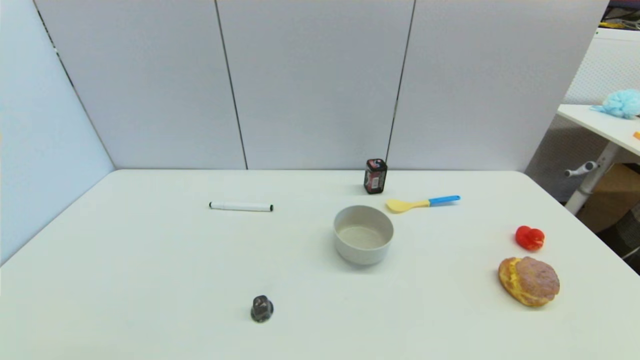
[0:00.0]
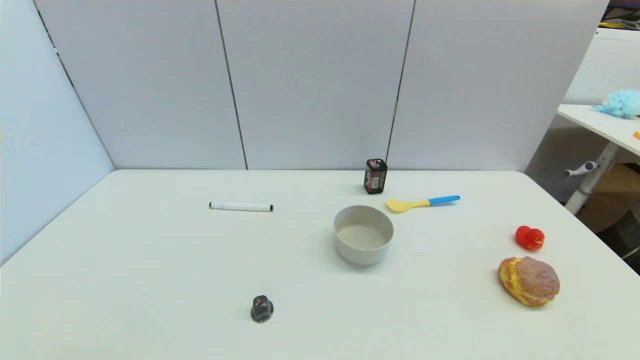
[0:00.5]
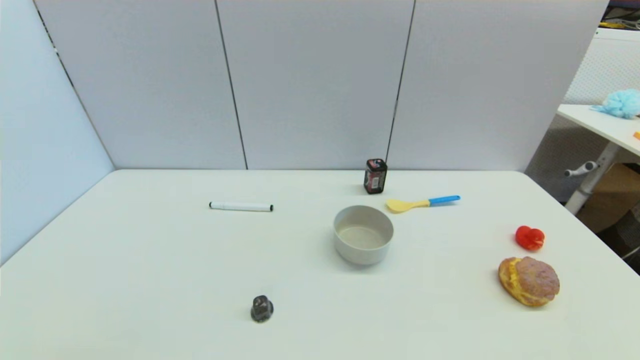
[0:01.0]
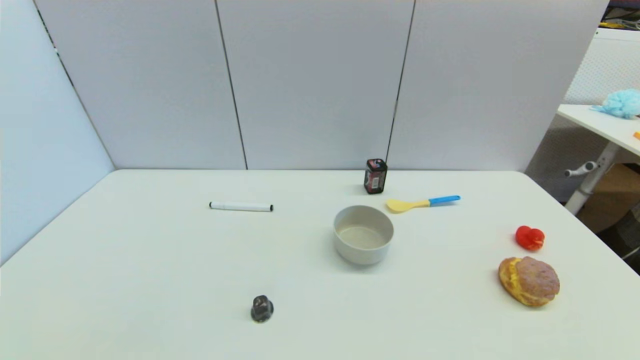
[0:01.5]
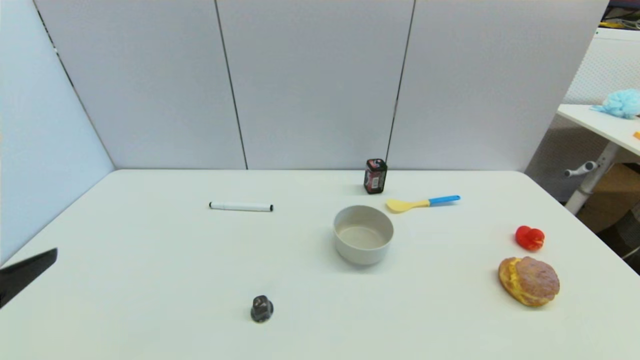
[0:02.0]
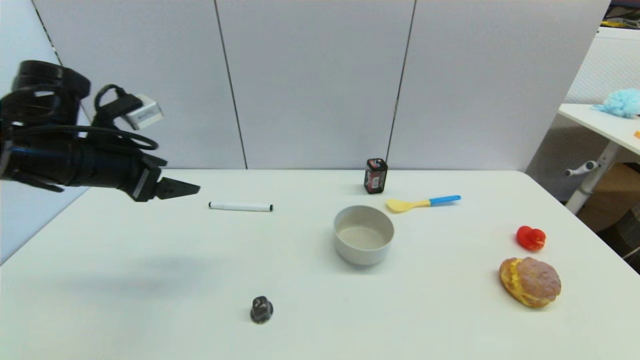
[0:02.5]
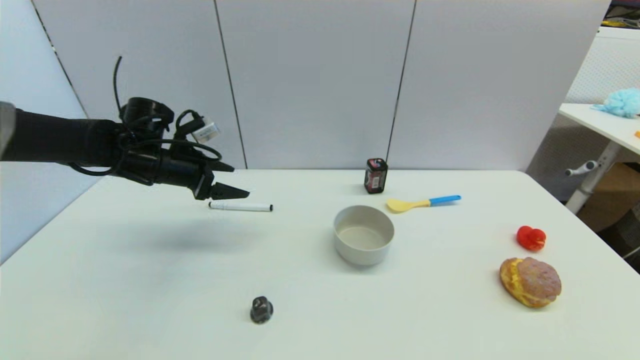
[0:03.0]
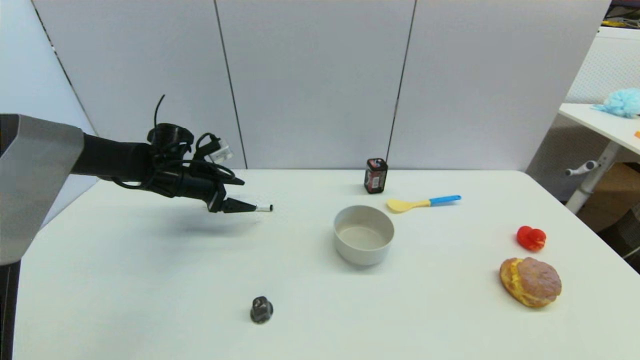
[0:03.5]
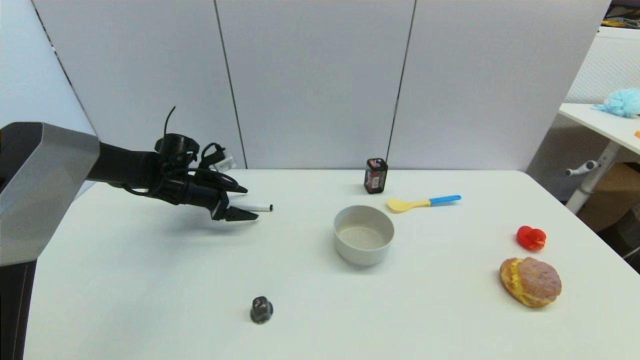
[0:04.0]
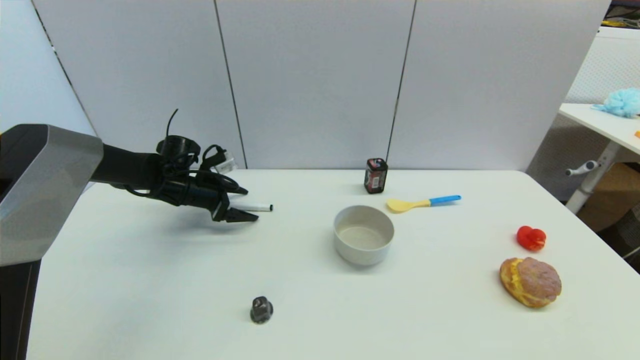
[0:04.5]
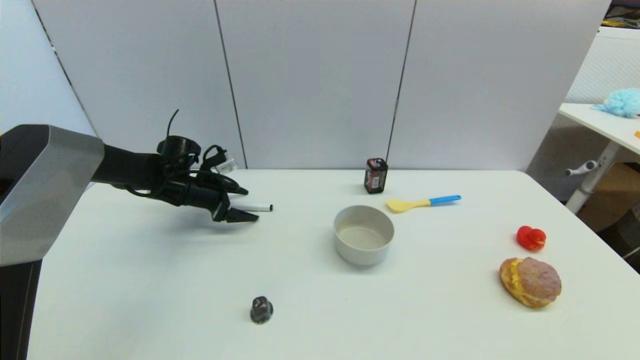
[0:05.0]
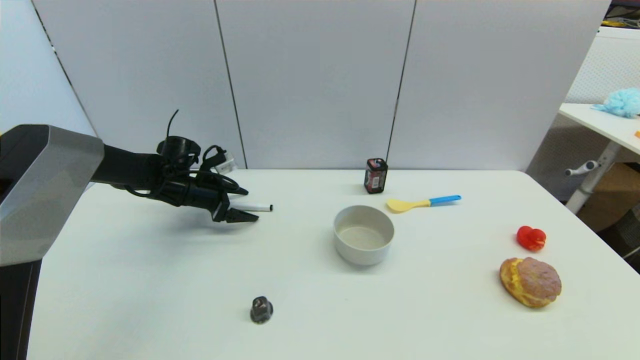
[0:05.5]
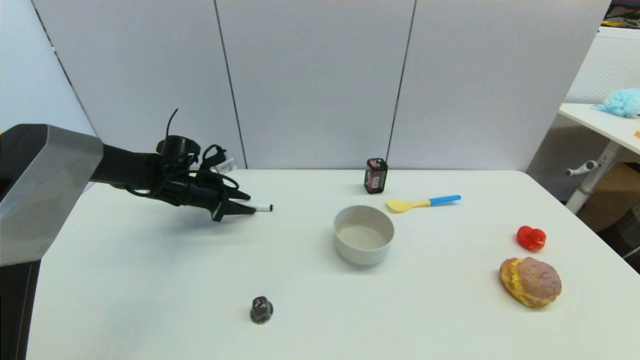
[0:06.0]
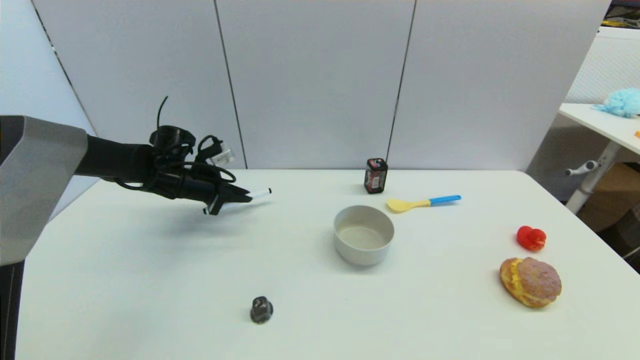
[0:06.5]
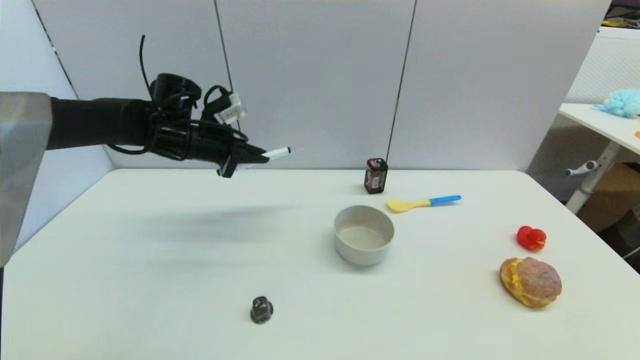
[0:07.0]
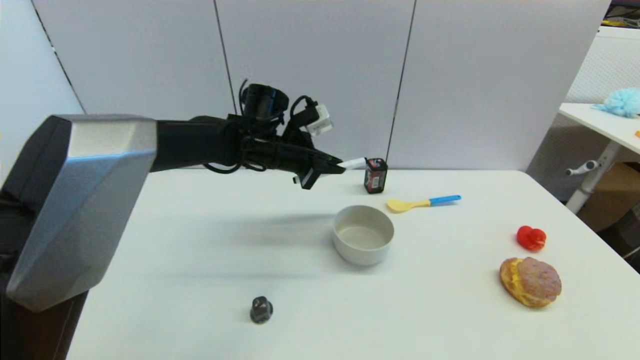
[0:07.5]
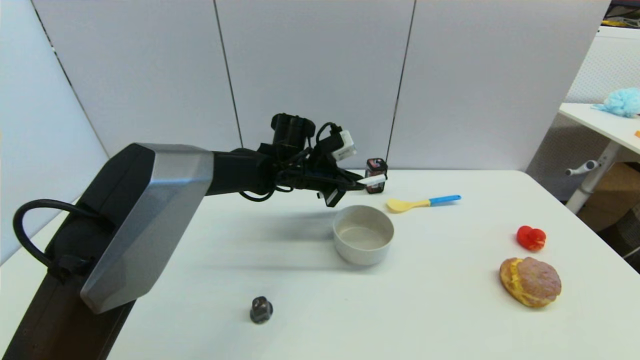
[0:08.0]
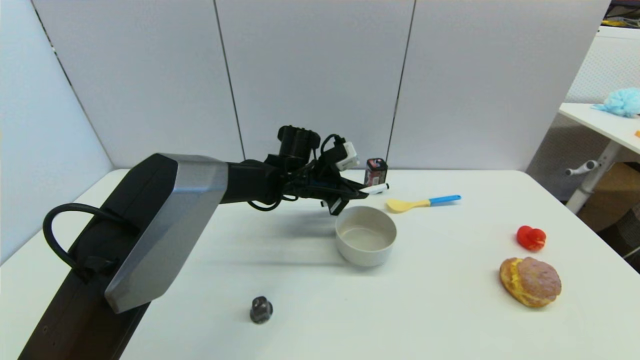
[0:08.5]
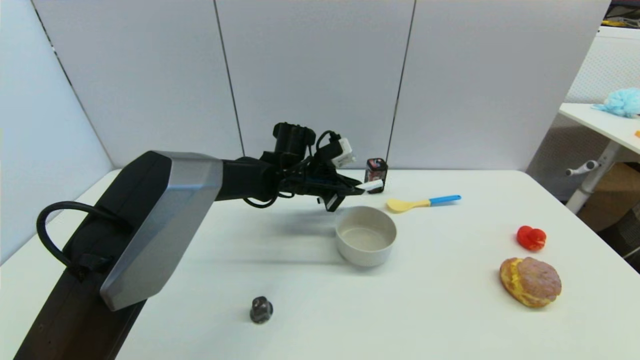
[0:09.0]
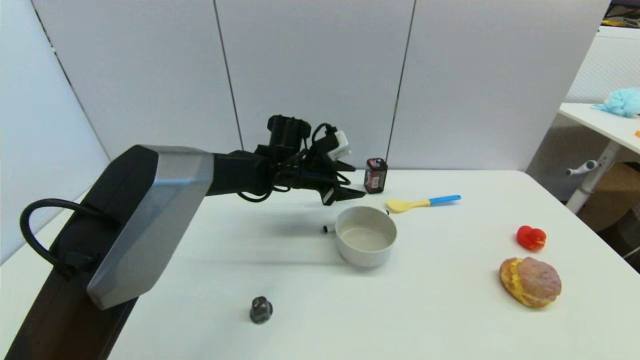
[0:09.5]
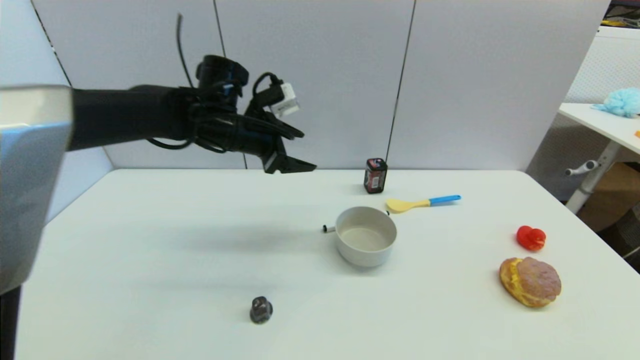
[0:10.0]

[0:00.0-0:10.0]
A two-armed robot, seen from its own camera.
Task of the whole recording: put the black marker in the designated position.
Step, 0:02.0 to 0:06.0: Grasp the Marker pen with left gripper.
Step, 0:06.5 to 0:09.0: Place the Marker pen on the table with left gripper.
0:00.0 to 0:02.0: The left gripper moves upward and forward, some 20 cm.
0:02.0 to 0:04.0: The left gripper goes some 35 cm forward.
0:04.0 to 0:06.0: The left gripper closes up.
0:06.0 to 0:08.0: The left gripper heads to the right, covering approximately 25 cm, and closes up.
0:08.0 to 0:10.0: The left gripper goes about 15 cm to the left and upward, and opens.

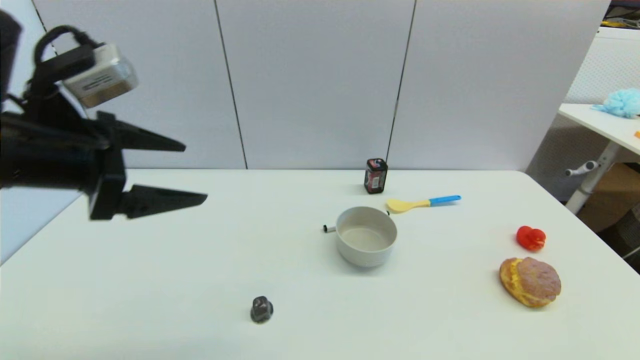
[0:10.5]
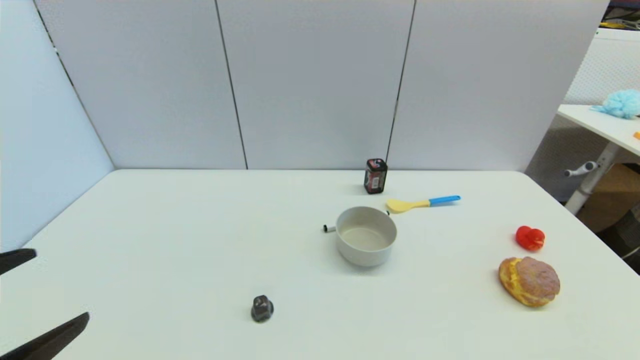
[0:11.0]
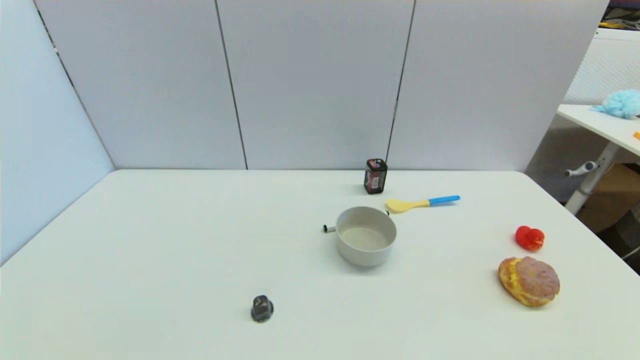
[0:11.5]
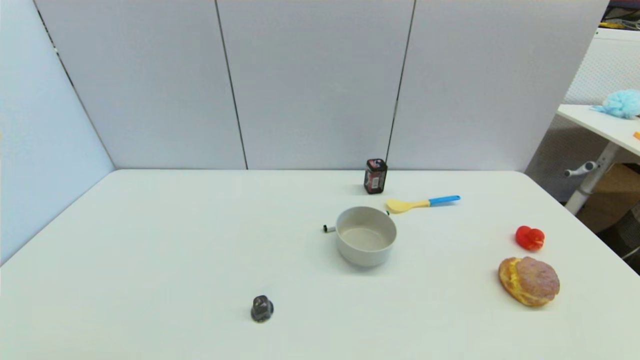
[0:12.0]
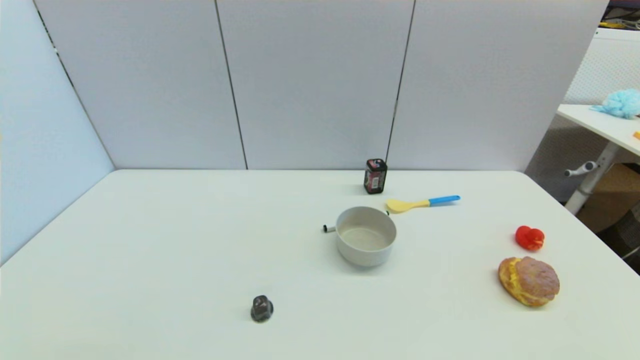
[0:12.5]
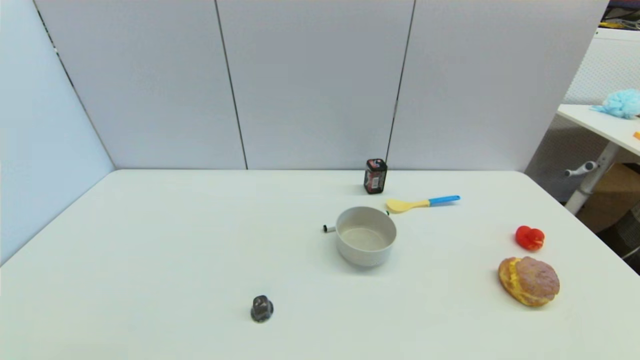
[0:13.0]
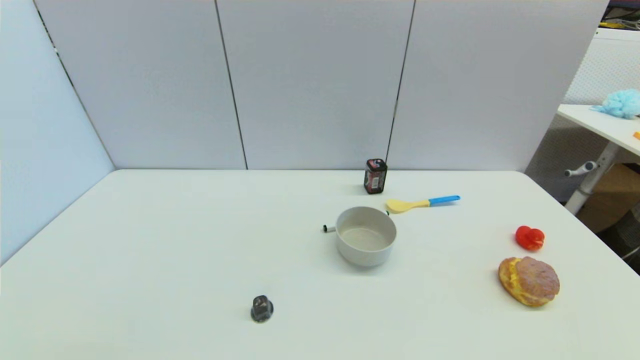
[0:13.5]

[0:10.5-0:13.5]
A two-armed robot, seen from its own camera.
Task of the whole recording: put the black marker in the designated position.
0:10.5 to 0:12.0: The left gripper heads downward and backward, covering approximately 30 cm.

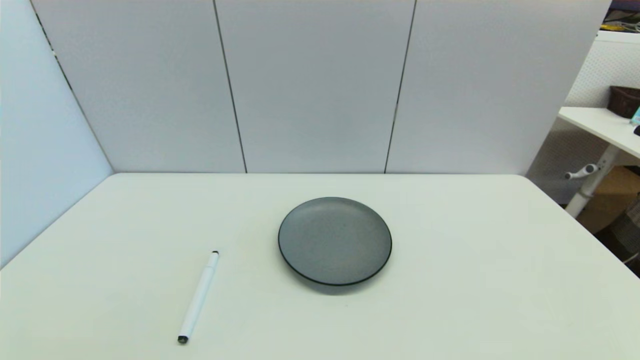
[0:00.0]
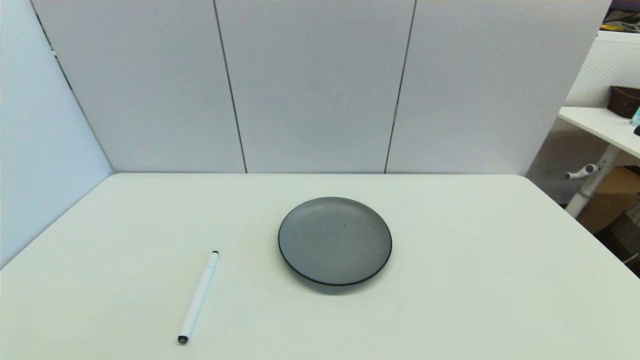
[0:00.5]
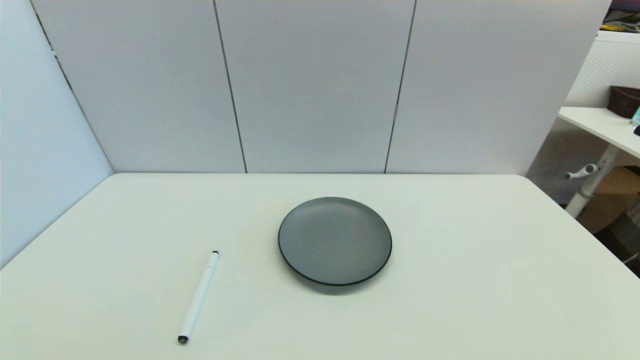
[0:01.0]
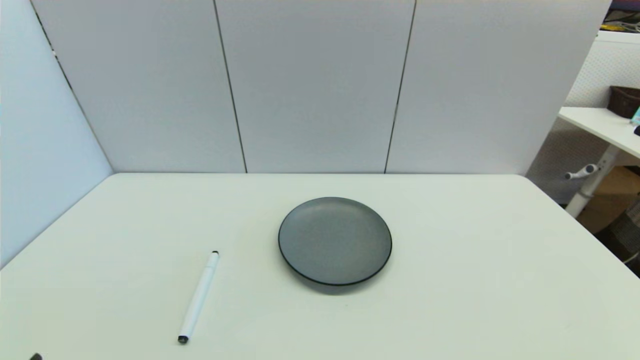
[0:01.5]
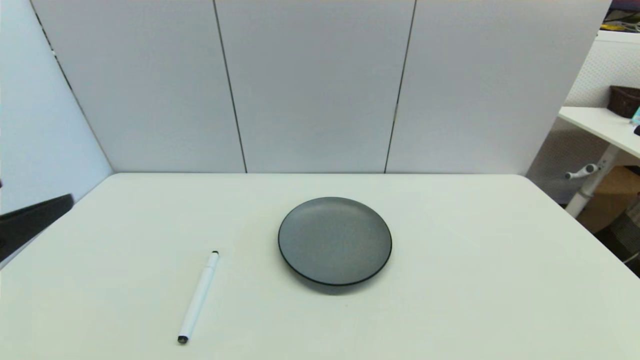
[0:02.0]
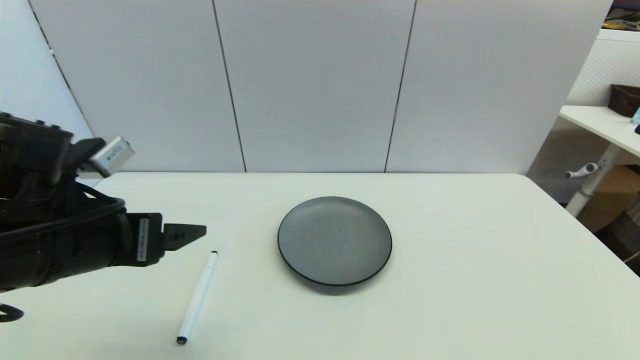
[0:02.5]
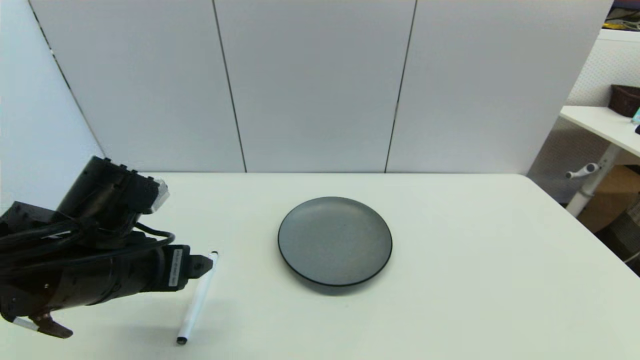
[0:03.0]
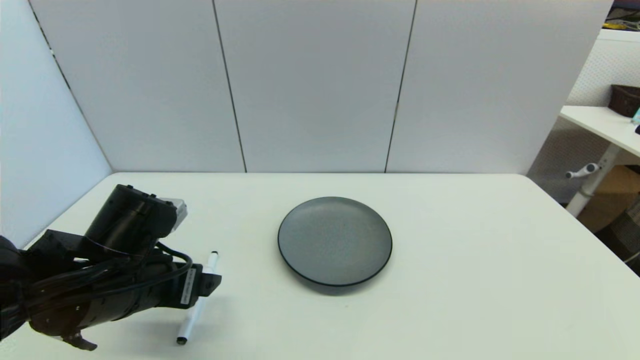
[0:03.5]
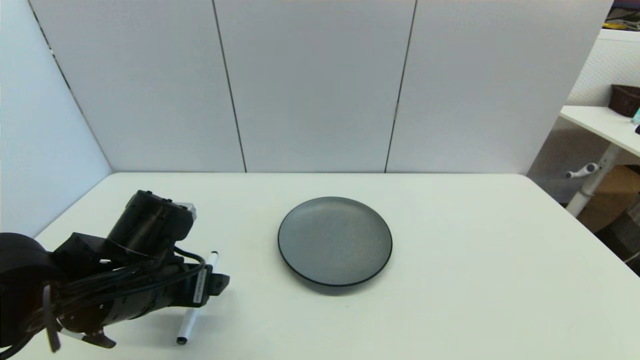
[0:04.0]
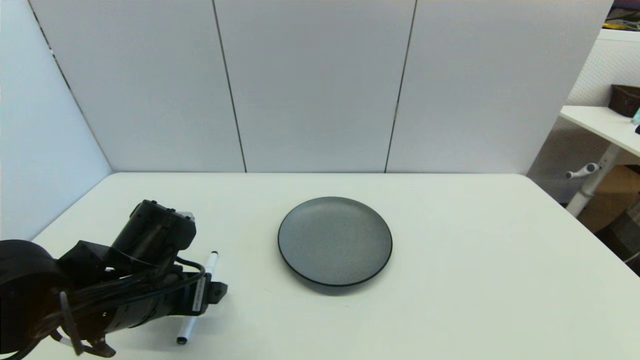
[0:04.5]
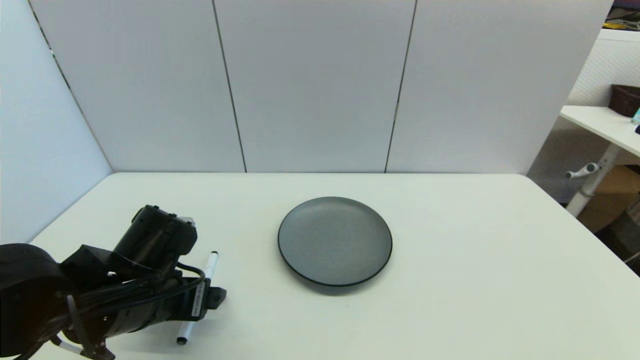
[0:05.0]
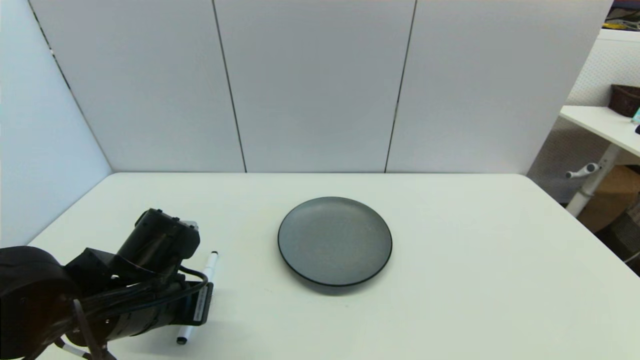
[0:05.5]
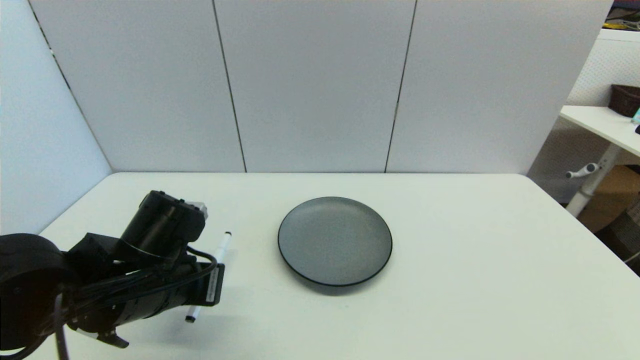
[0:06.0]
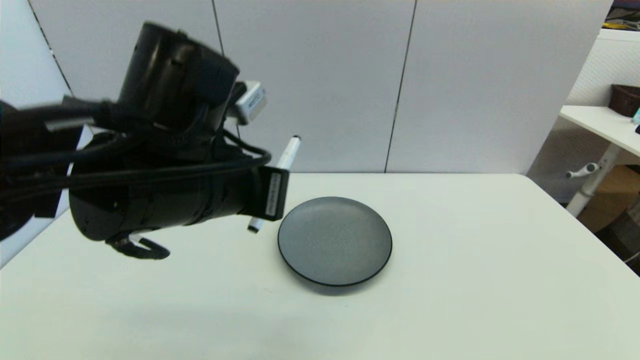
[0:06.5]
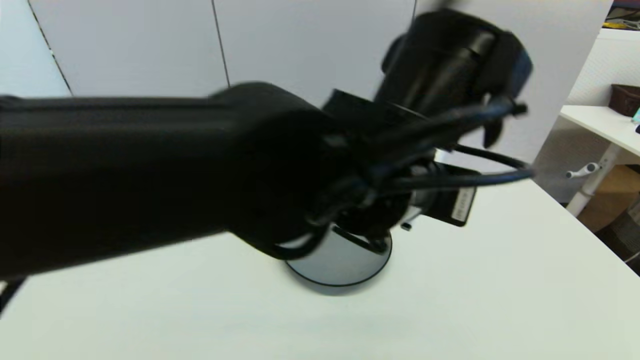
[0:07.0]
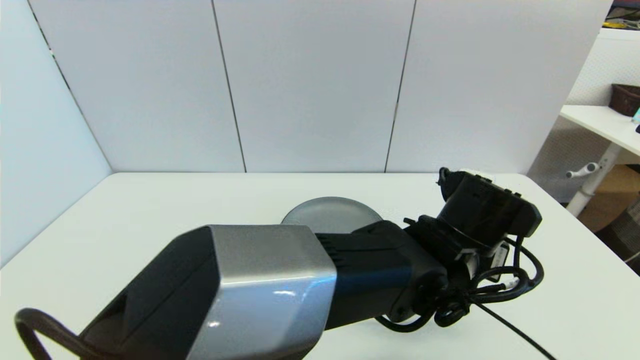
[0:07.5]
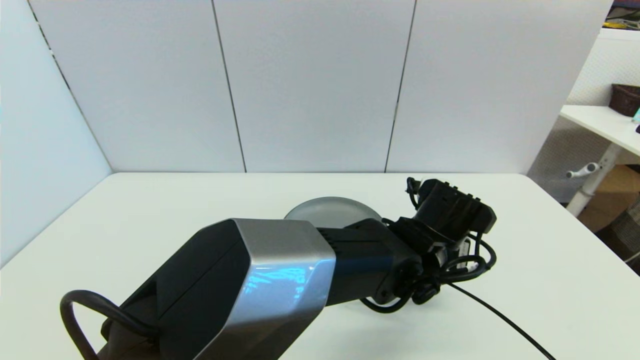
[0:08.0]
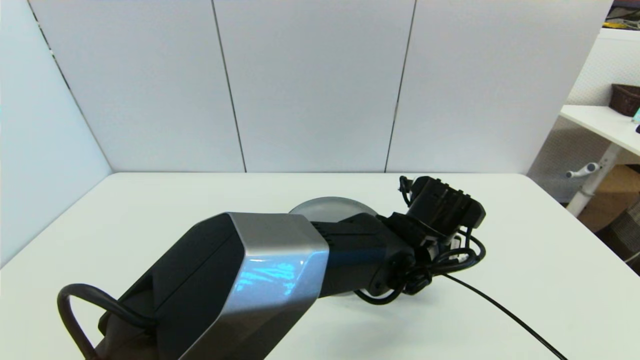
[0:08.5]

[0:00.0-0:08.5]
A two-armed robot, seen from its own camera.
Task of the whole recording: put the black marker in the designated position.
Step, 0:02.0 to 0:05.5: Grasp the Marker pen with left gripper.
0:00.0 to 0:02.0: The left gripper shifts roughly 20 cm upward and forward.
0:02.0 to 0:04.0: The left gripper heads downward, forward and to the right, covering roughly 20 cm.
0:04.0 to 0:06.5: The left gripper goes some 20 cm upward and to the right, and closes.
0:06.5 to 0:08.5: The left gripper goes some 25 cm to the right and downward.
